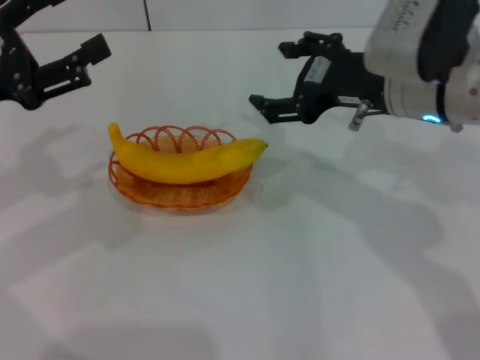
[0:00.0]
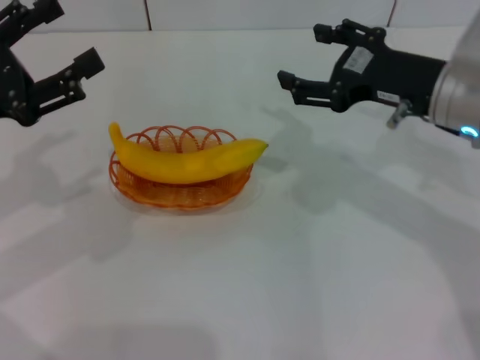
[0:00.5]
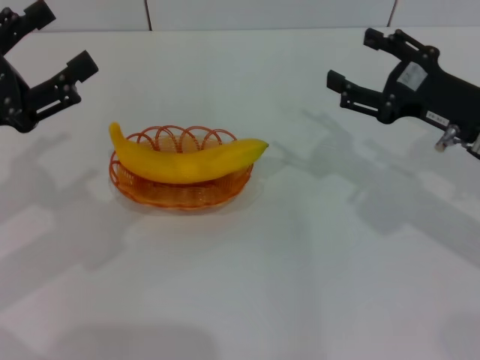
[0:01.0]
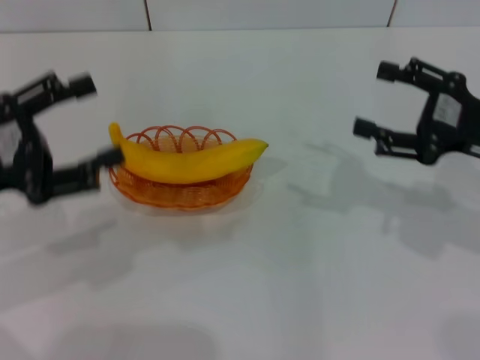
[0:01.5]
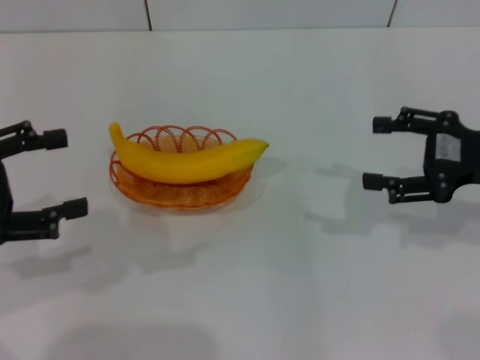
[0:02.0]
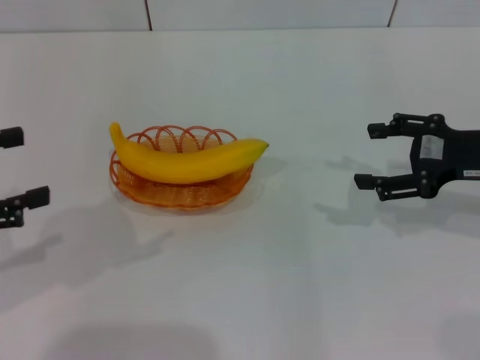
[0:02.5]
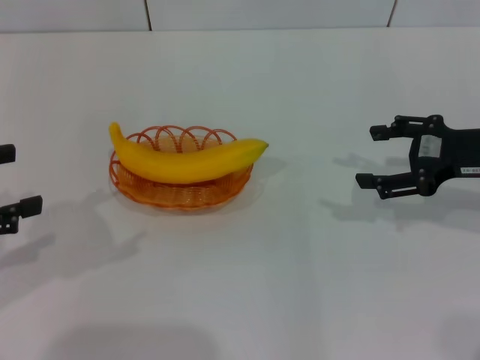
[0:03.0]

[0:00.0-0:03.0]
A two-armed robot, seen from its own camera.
0:00.0 to 0:01.5: The right gripper heads to the right and downward, covering approximately 15 cm.
0:01.5 to 0:03.0: The left gripper moves to the left, approximately 5 cm.
